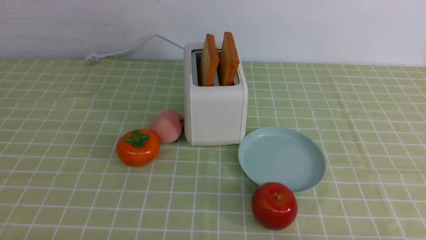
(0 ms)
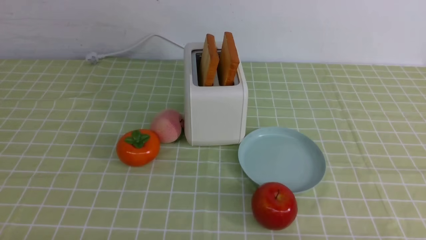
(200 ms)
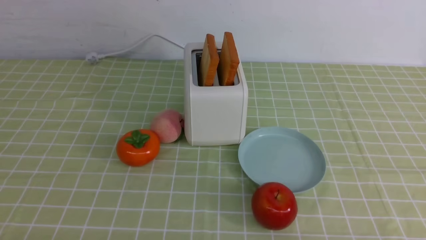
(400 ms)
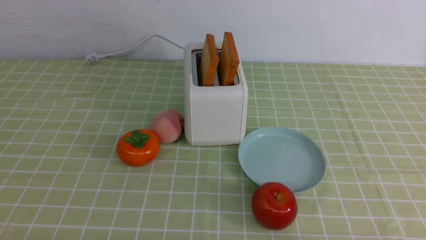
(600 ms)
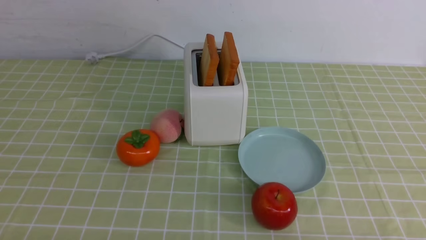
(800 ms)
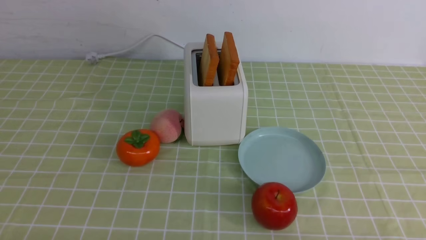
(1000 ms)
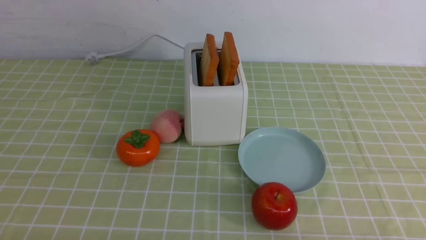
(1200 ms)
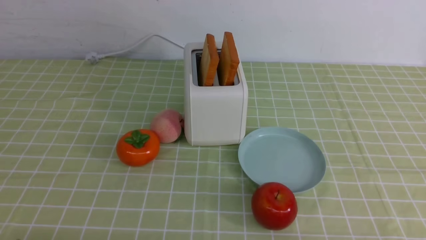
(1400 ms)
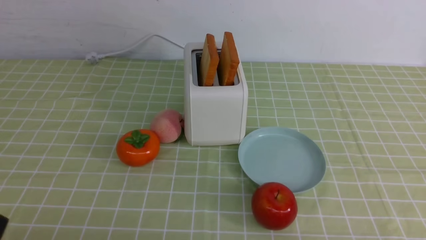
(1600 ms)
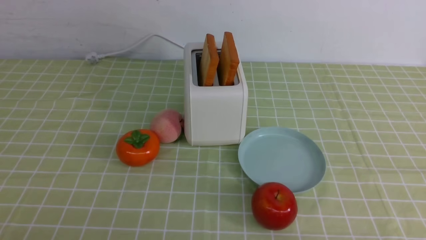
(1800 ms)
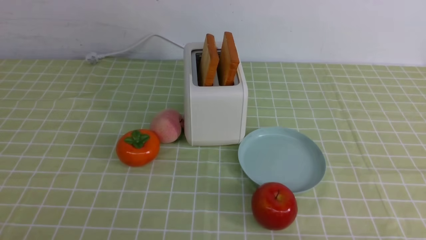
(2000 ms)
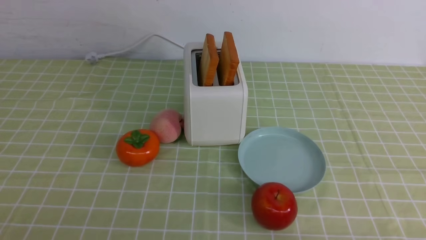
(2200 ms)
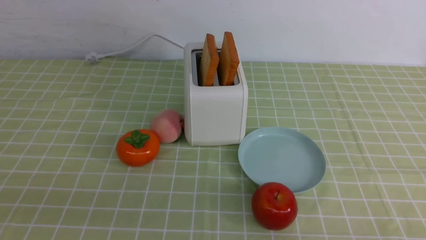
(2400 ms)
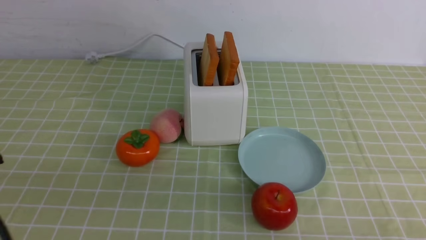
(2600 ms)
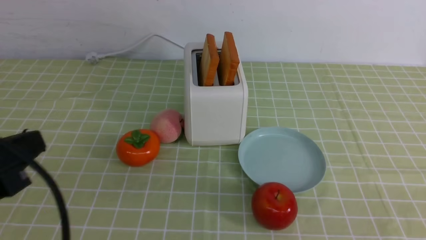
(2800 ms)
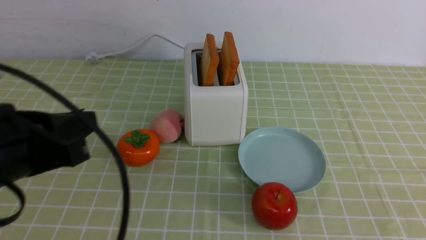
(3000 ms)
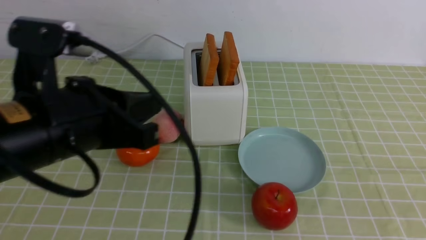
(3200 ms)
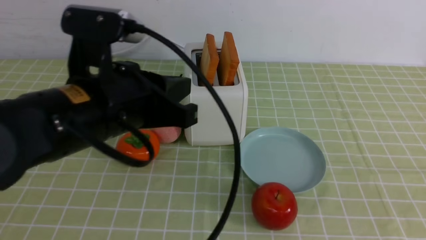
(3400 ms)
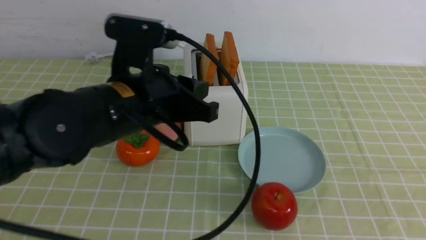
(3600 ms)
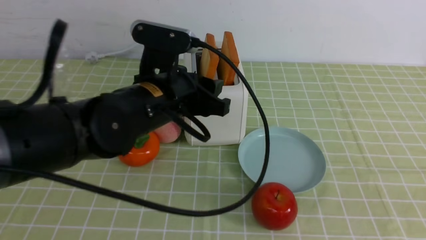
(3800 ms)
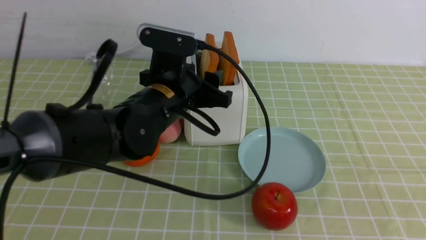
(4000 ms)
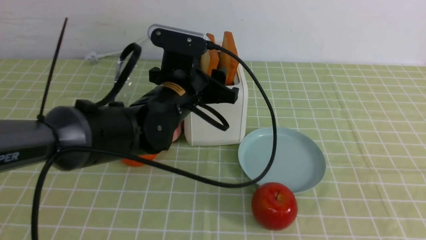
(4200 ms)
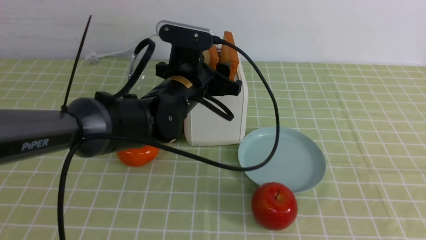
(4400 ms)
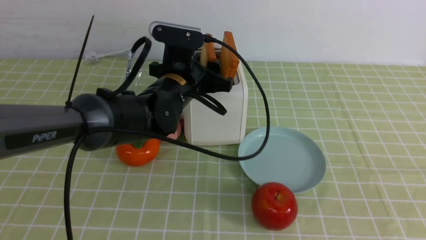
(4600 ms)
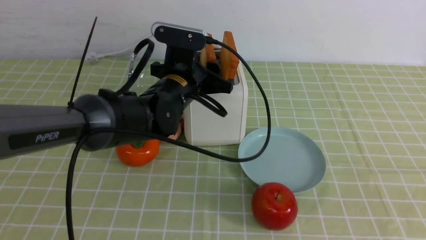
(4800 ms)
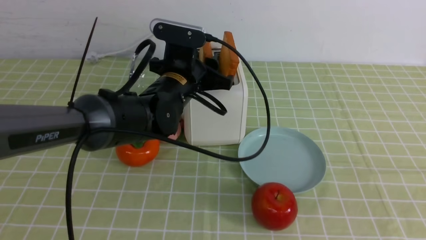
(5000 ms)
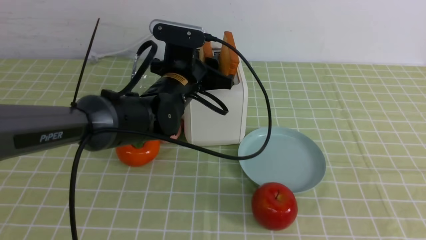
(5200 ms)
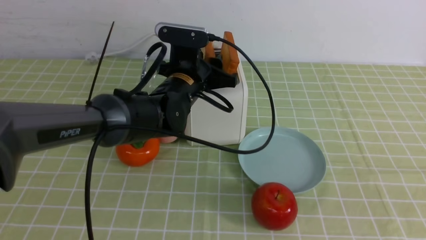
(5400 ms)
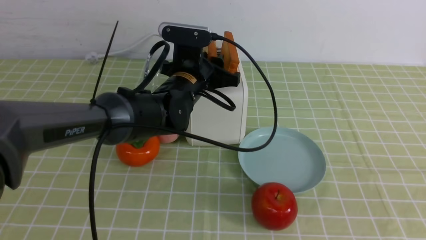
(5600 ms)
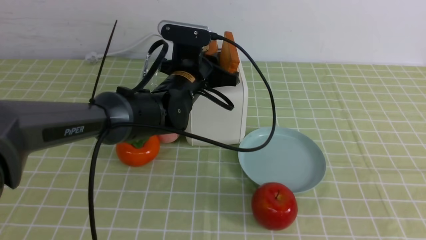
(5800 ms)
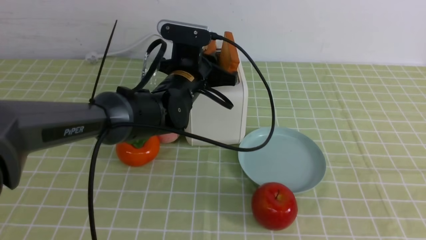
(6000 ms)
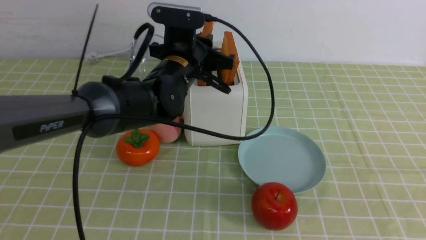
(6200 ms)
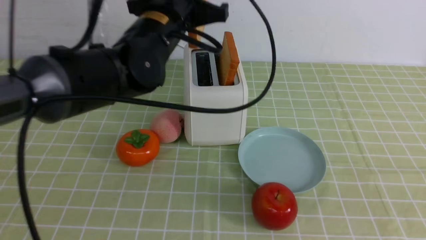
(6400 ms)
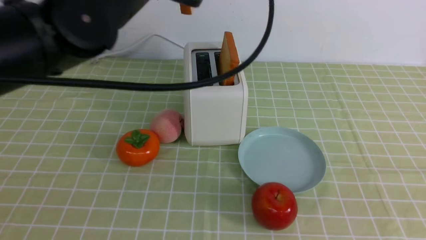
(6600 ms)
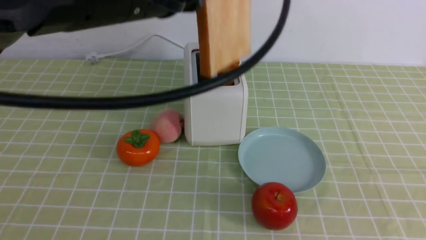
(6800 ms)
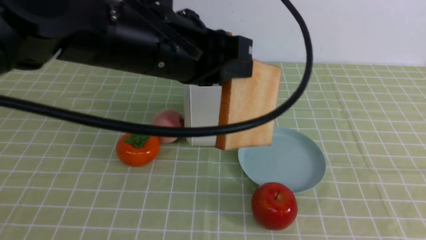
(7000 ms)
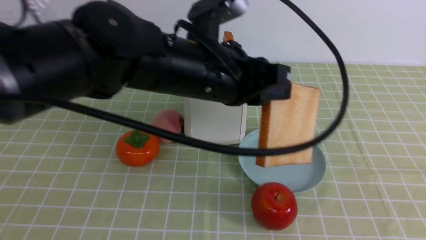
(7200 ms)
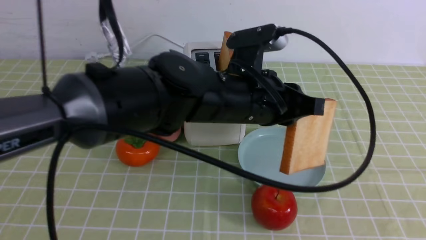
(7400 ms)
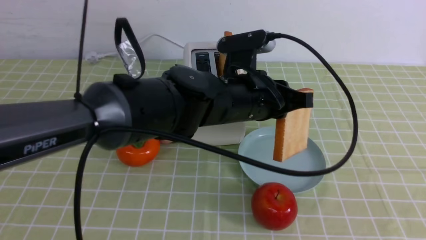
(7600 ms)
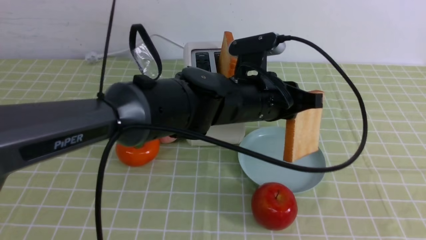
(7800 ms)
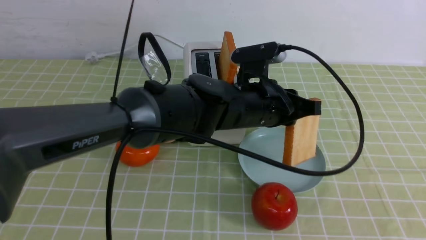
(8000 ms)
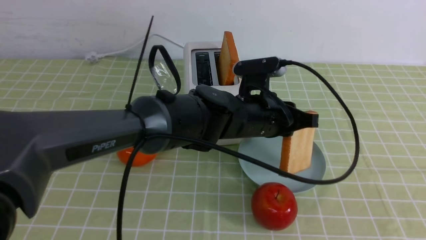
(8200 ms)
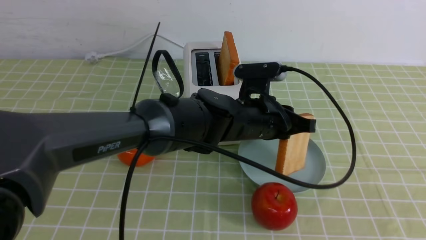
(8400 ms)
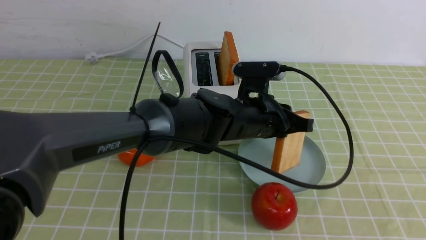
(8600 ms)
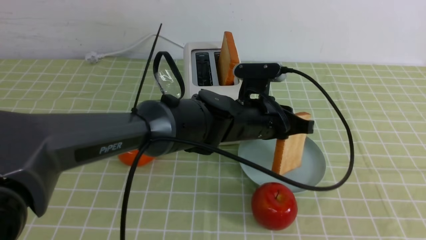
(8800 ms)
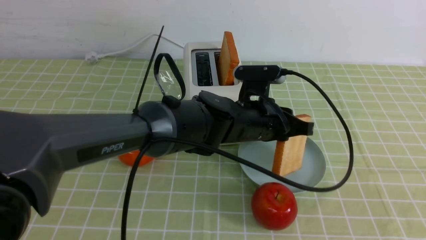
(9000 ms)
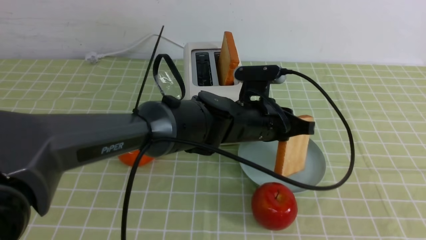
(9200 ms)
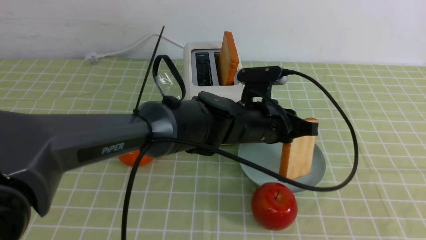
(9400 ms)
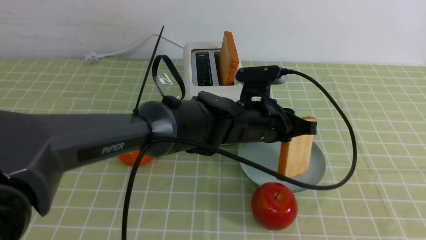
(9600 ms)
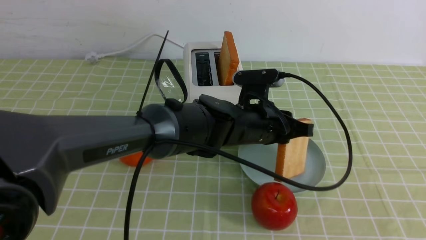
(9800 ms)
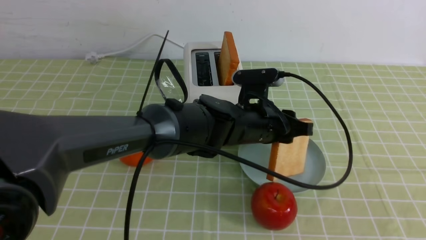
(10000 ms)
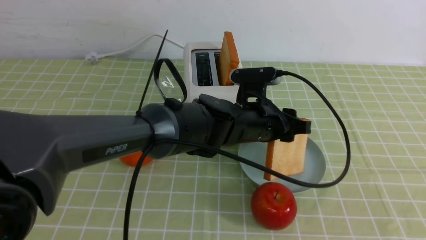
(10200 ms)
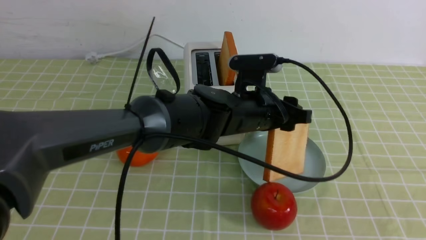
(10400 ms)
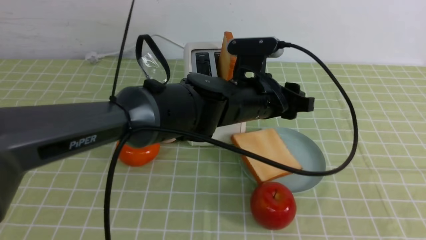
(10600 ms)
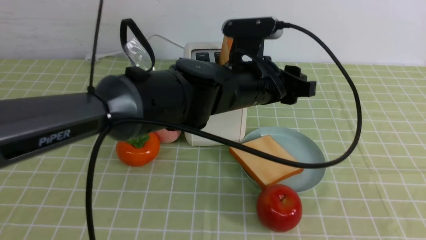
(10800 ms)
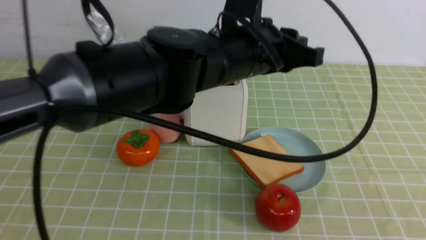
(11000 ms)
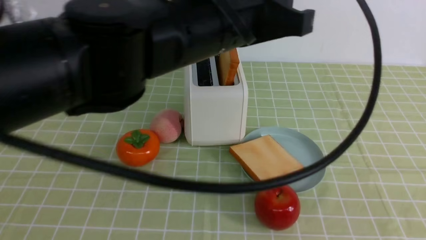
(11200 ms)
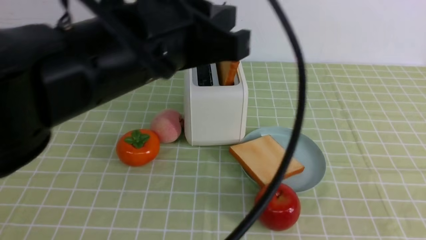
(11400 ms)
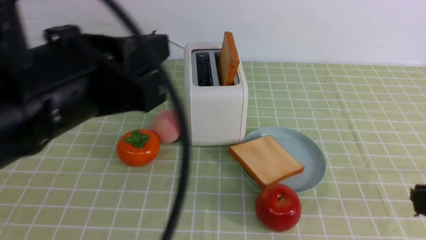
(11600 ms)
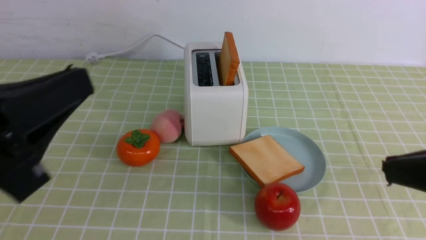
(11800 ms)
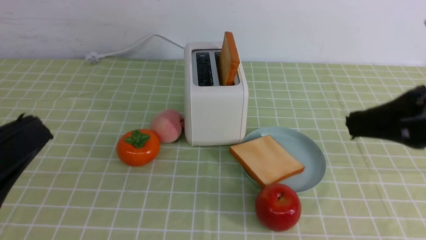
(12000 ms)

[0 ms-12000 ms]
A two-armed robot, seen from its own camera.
Task of the whole recording: take toasted bread from bread machine on green coffee tablecloth place on plate.
Step, 0 ms to 6400 ms: use the left arm to take out a slice of bread.
Step, 6600 ms to 10600 ms: use the left arm to put a slice of bread into the empty plate.
1600 ms to 3000 ms: The left gripper shifts roughly 20 cm upward, forward and to the right, and closes up.
3000 ms to 4400 ms: The left gripper travels forward and to the right by some 25 cm, and opens up.
4400 ms to 6000 ms: The left gripper closes its fingers.
6000 ms to 7600 ms: The left gripper moves backward and to the right, about 10 cm, and goes upward and returns, roughly 15 cm each way.
7600 ms to 9000 ms: The left gripper is displaced downward by about 5 cm.
9000 ms to 10400 ms: The left gripper opens.
10400 ms to 12000 ms: The left gripper is displaced backward and to the left by approximately 35 cm, and closes its fingers; the right gripper moves forward, about 15 cm.

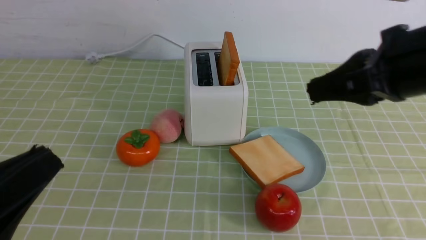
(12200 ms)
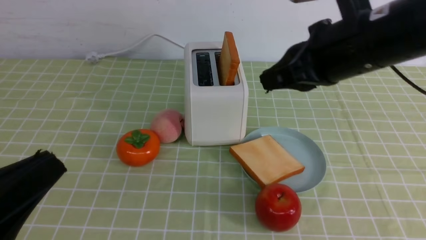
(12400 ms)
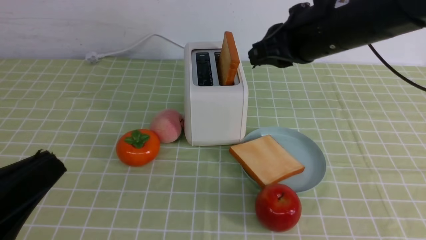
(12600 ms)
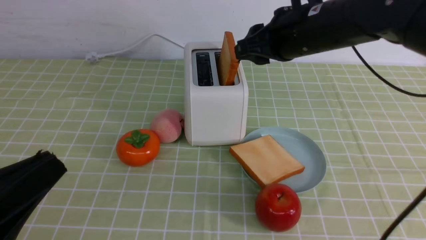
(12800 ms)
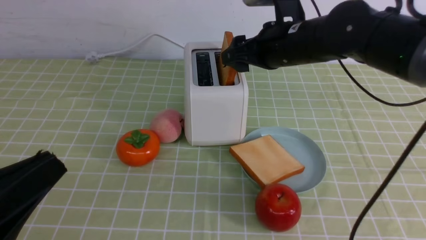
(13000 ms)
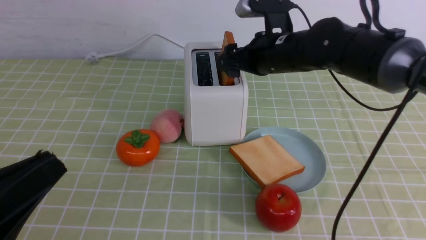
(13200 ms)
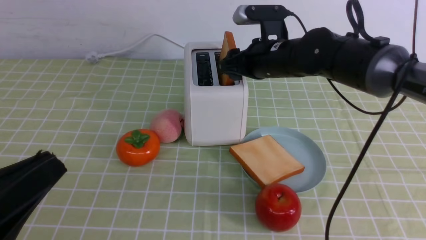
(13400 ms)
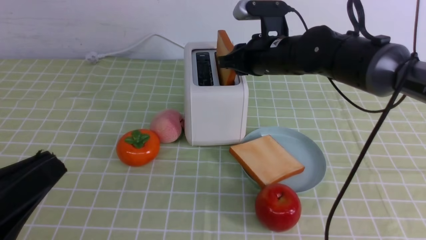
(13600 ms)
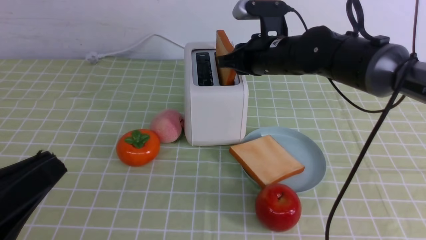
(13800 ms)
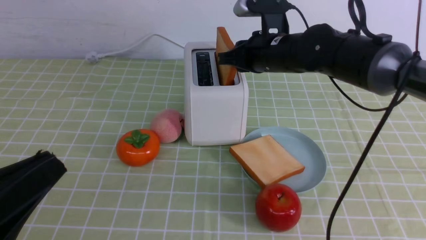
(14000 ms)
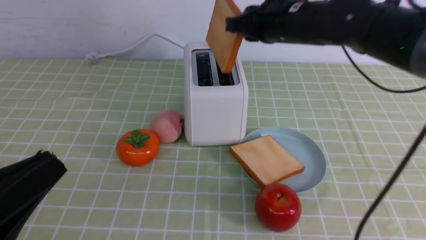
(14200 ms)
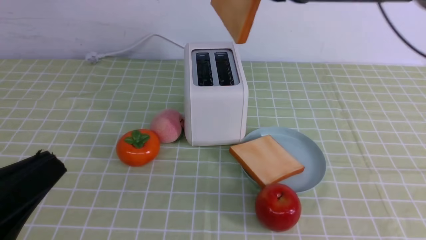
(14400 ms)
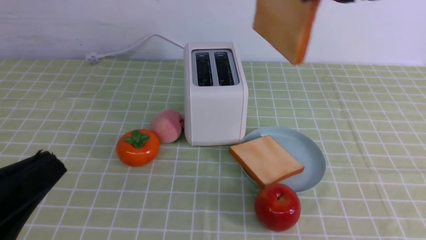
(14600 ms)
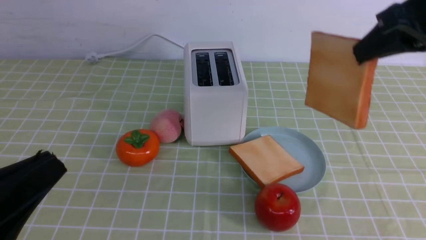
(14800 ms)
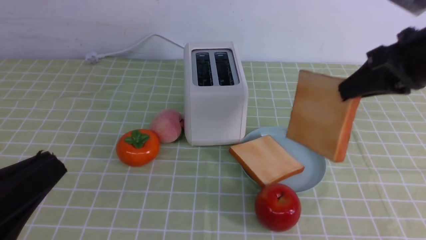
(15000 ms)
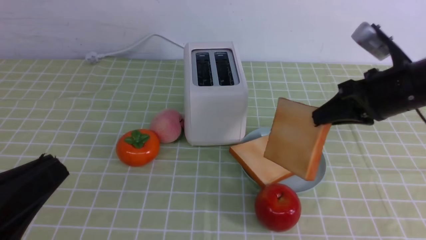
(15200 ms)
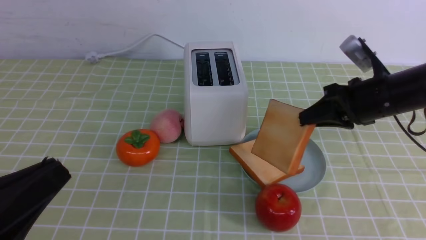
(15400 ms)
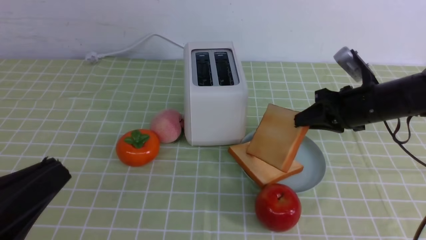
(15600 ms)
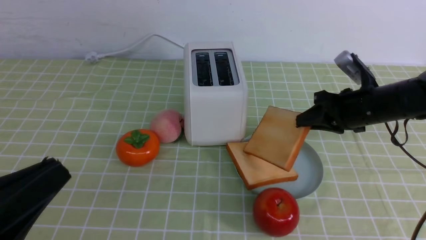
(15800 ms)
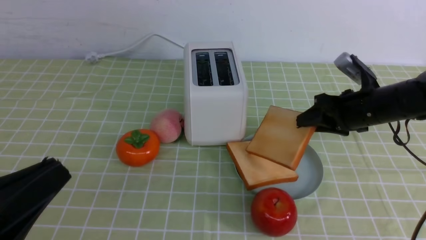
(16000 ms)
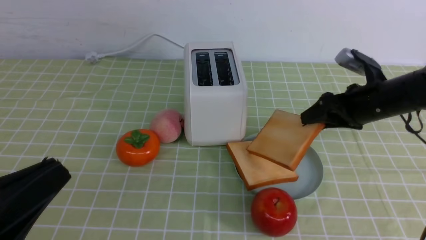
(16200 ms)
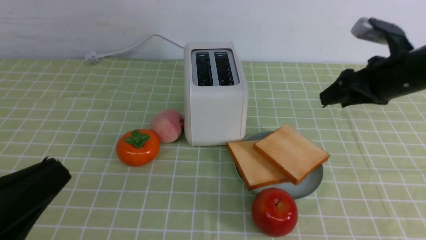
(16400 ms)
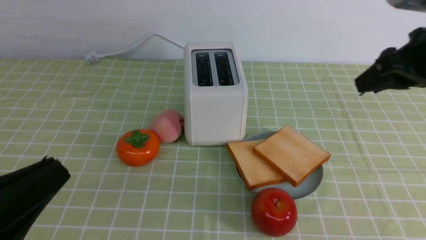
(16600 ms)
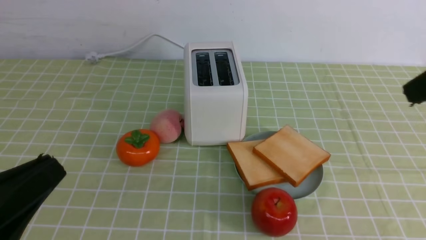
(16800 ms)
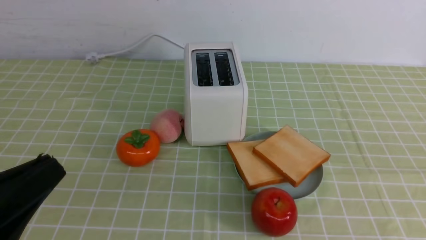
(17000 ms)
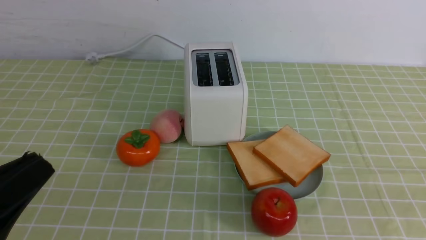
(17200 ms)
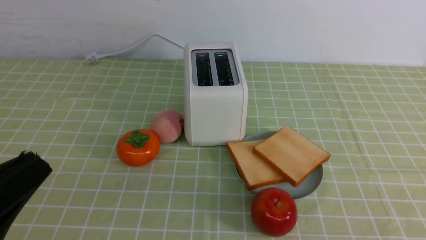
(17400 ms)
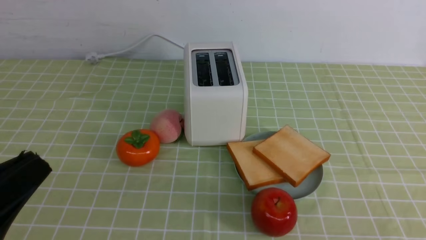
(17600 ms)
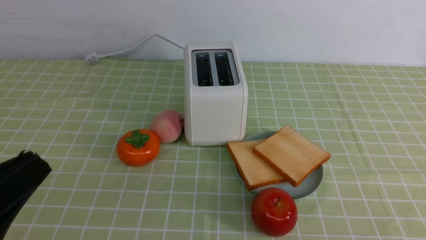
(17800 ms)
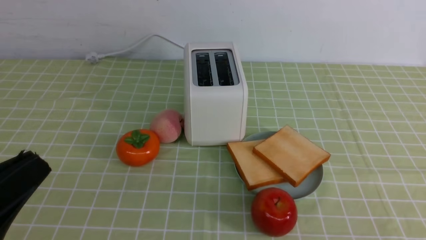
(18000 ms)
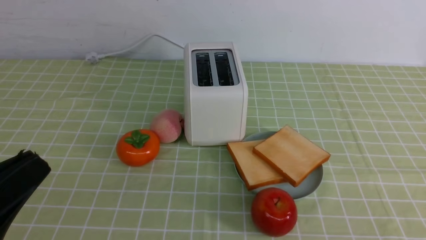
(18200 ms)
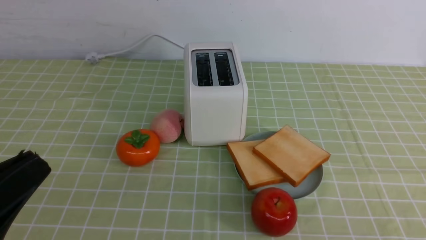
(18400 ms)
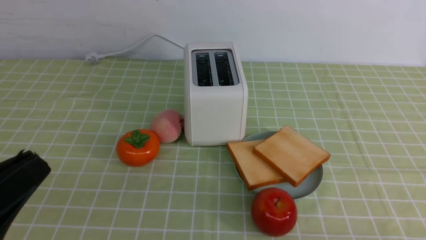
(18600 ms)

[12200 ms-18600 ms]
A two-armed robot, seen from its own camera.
Task of the whole recording: take toasted bread from bread machine on green coffee tablecloth place on plate.
Step, 12200 ms to 14200 ms: use the right arm to take out a slice of bread.
Step, 14400 ms to 16400 ms: use the right arm to put a slice of bread into the plate.
12200 ms to 13800 ms: The right gripper moves forward, downward and to the left, some 25 cm, and opens and closes again.
13800 ms to 15400 ms: The right gripper heads to the right and backward, covering approximately 15 cm, and moves approximately 15 cm upward and comes back.
15400 ms to 17000 ms: The right gripper is displaced backward and upward by about 30 cm, and opens and closes again.
